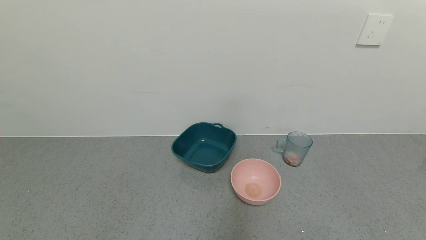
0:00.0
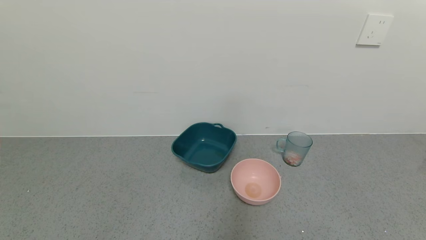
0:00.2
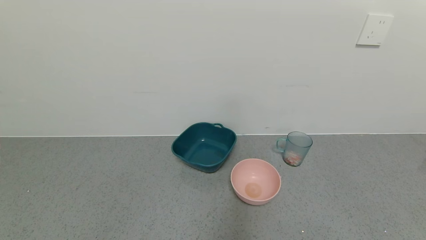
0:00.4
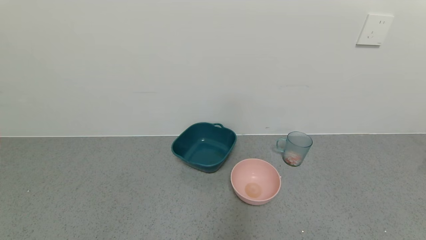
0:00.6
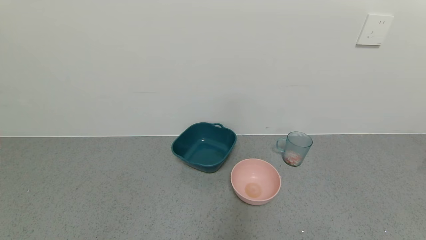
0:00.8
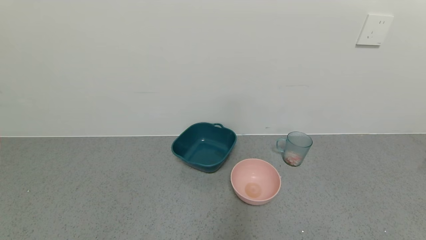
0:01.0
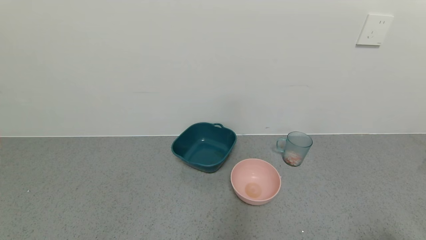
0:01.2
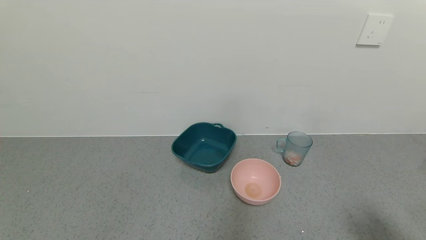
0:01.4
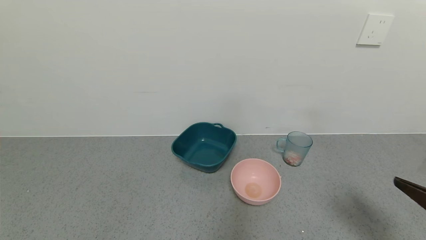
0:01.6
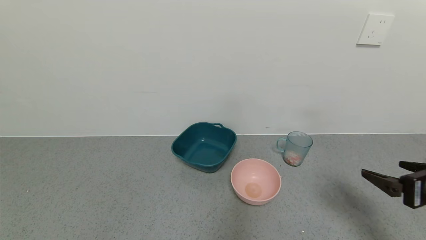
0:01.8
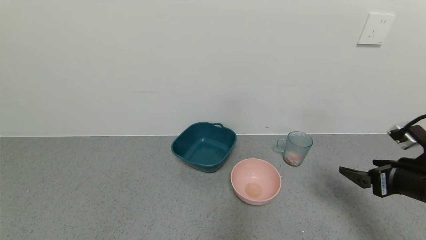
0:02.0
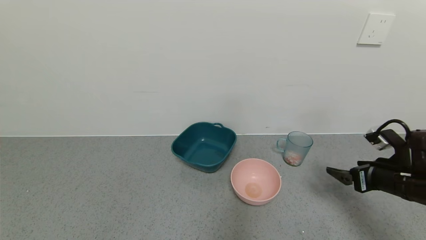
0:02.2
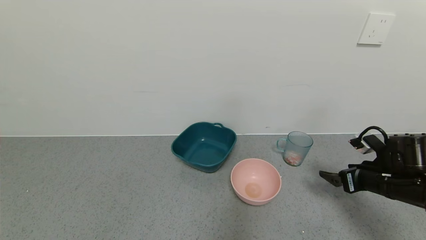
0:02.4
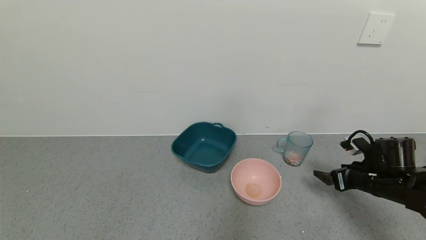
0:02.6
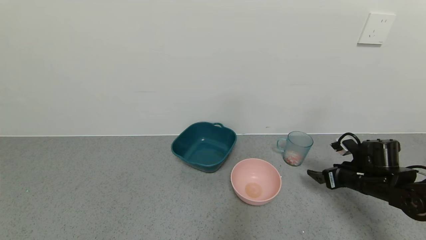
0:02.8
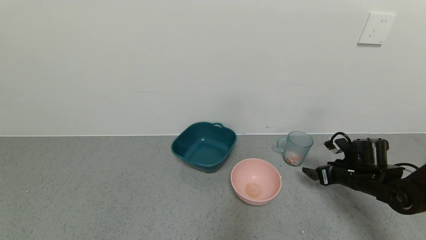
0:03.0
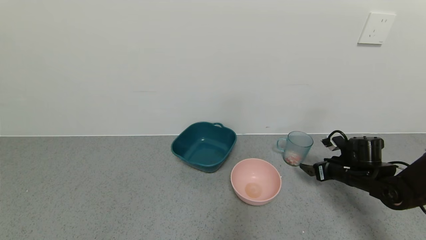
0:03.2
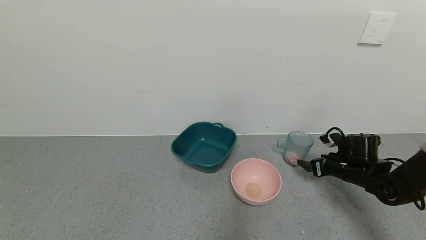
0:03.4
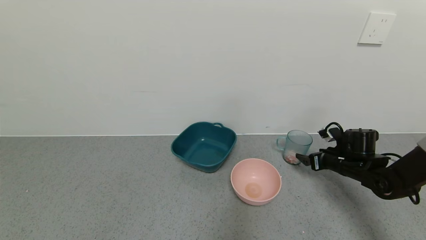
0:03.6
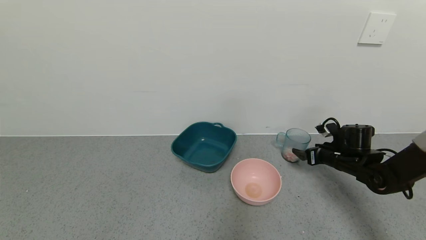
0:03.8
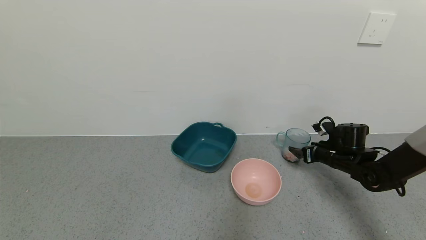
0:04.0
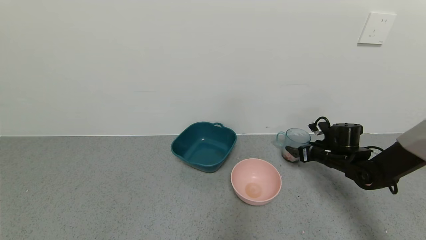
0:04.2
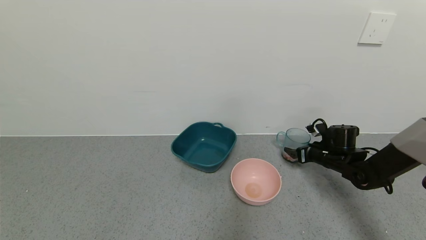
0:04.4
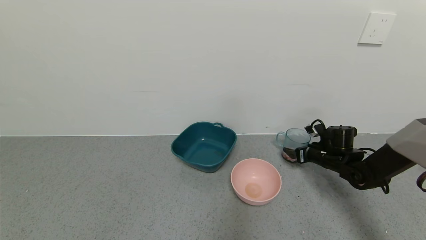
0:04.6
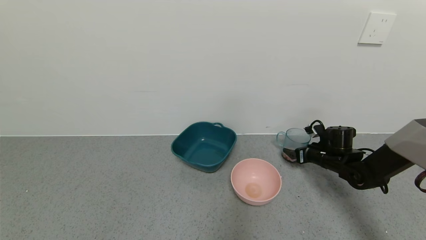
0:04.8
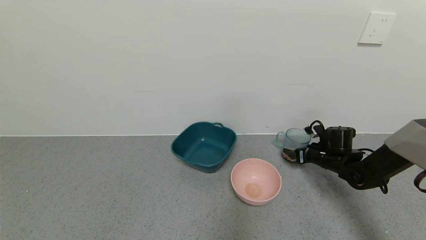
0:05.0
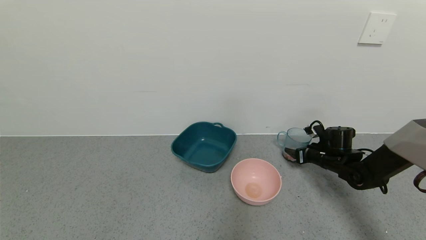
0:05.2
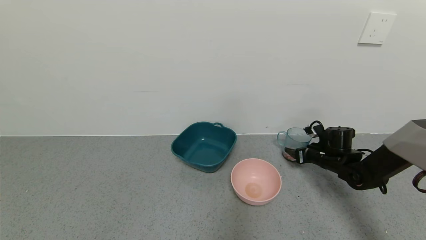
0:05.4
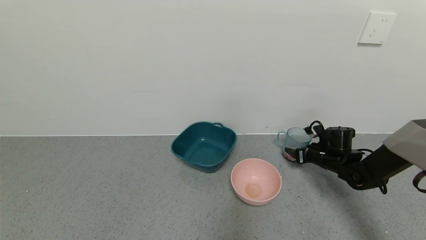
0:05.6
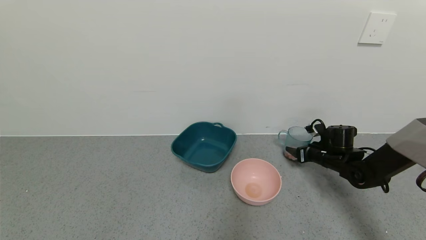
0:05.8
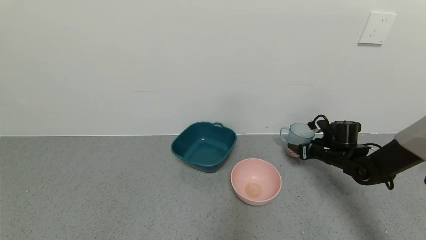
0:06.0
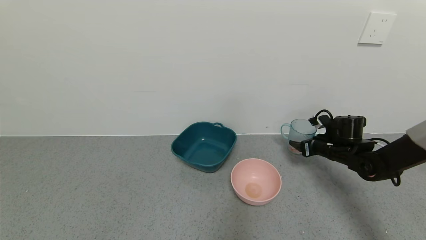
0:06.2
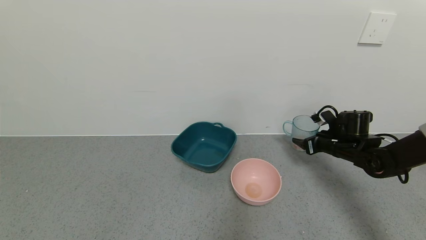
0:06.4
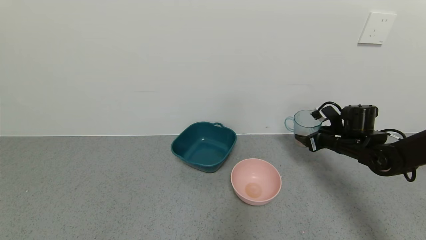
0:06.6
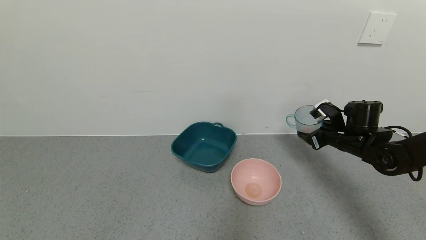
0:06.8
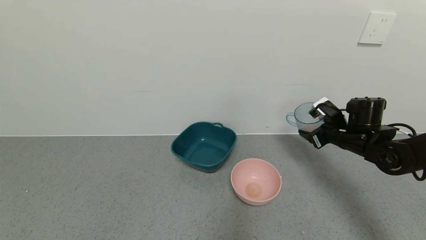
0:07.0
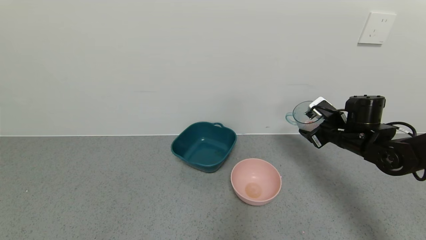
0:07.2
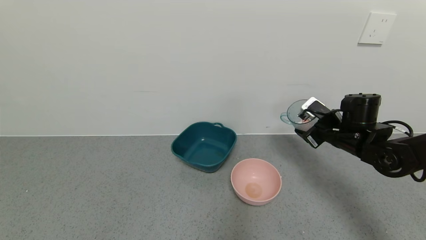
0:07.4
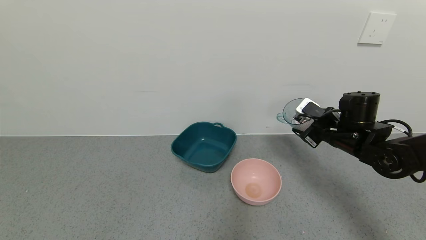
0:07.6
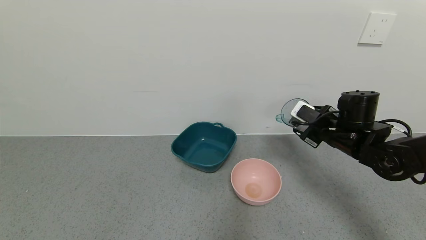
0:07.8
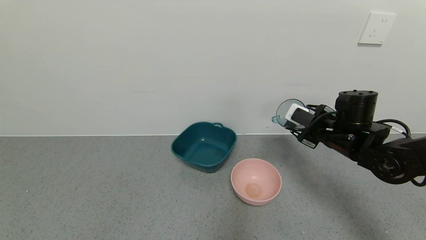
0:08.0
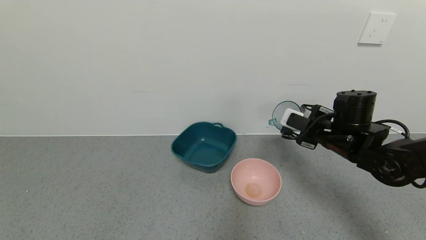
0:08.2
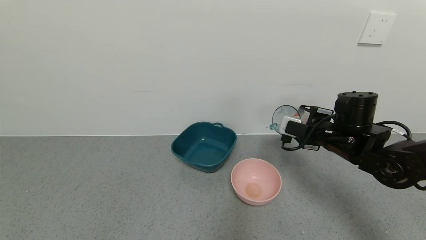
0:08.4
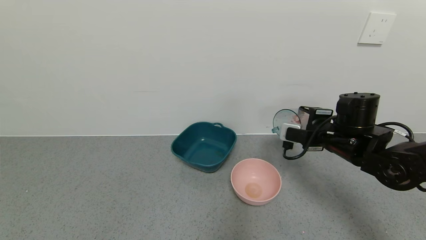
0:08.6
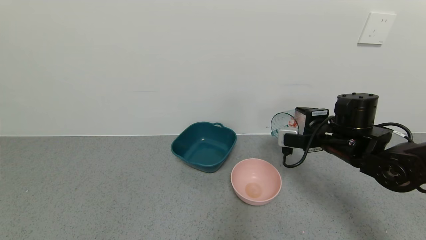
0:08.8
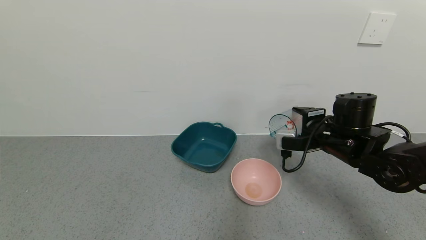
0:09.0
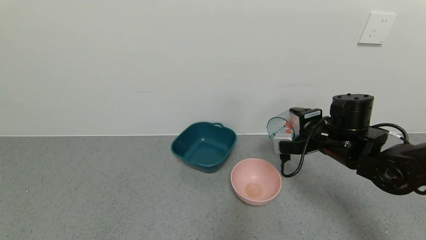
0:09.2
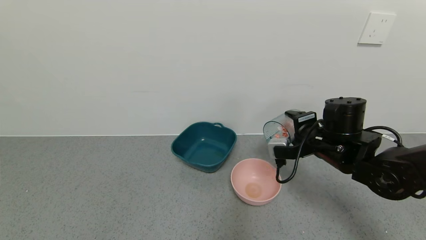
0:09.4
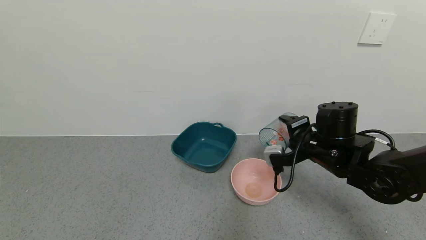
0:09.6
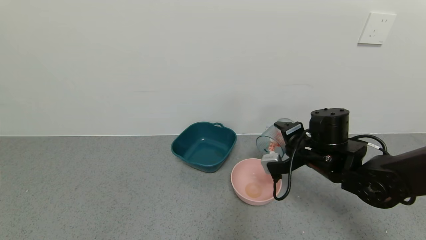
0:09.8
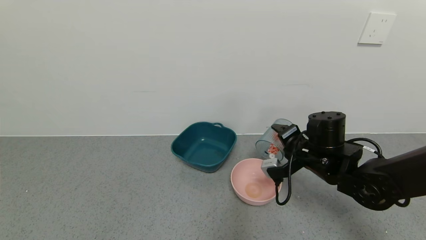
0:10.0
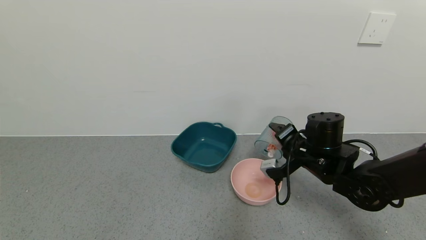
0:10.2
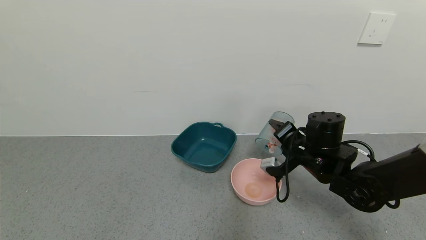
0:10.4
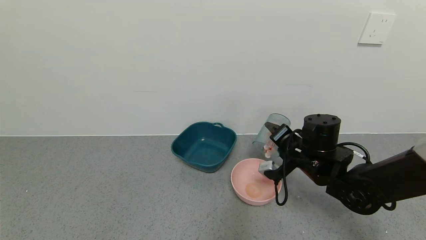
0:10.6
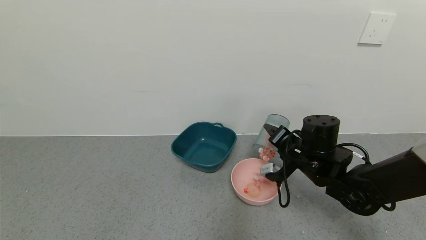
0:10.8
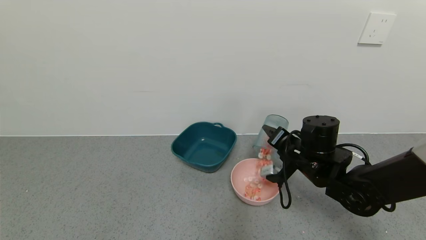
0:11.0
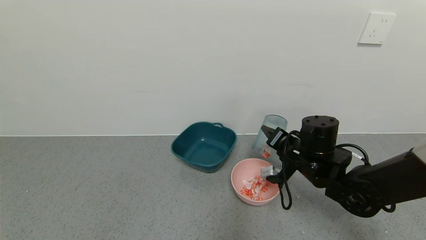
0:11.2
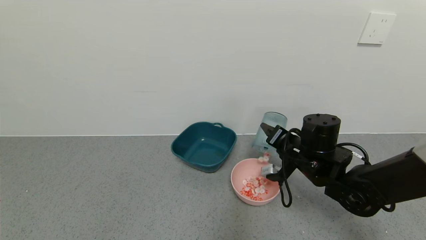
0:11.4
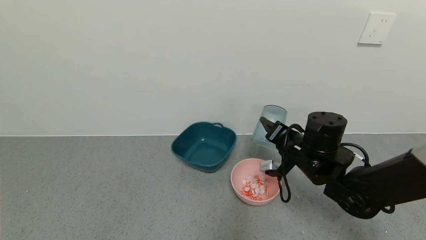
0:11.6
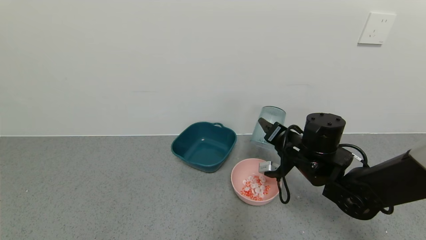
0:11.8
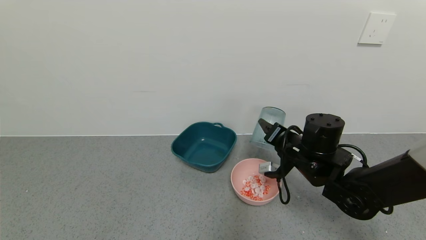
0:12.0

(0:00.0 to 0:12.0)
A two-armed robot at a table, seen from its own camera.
Task of the whole recording: use a gripper to pick up the cup and pour the solid into a bowl or tray.
Step, 0:00.0 - 0:05.6: Grasp the glass of shrimp with the right gripper.
0:00.0 - 0:01.6: The right gripper travels forward and upward by some 20 cm.
0:01.6 - 0:03.0: The right gripper goes about 25 cm forward and downward.
0:03.0 - 0:04.4: The right gripper heads forward, covering approximately 5 cm.
0:04.4 - 0:06.0: The right gripper closes its fingers.
0:06.0 - 0:07.6: The right gripper moves upward and backward, roughly 10 cm.
0:09.0 - 0:10.4: The right gripper ends up roughly 5 cm from where it was.
0:10.4 - 0:12.0: The grippers stay close to where they were, moving slightly.

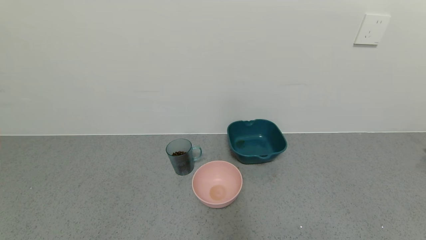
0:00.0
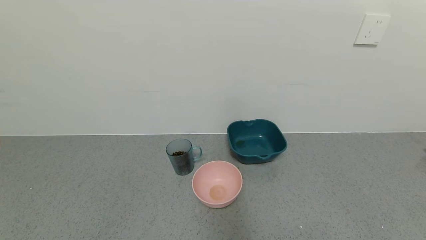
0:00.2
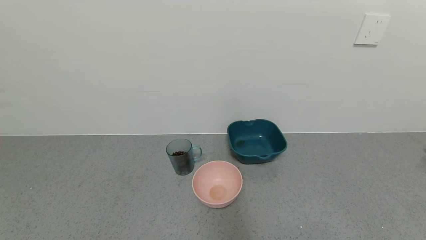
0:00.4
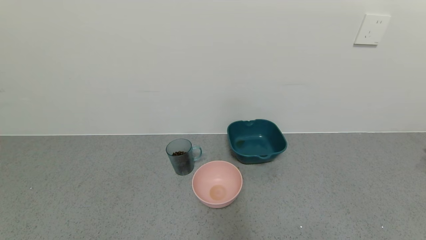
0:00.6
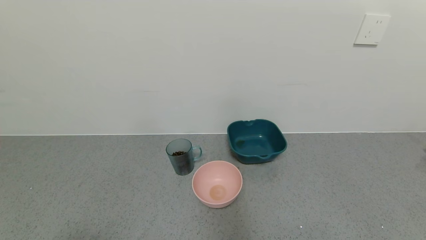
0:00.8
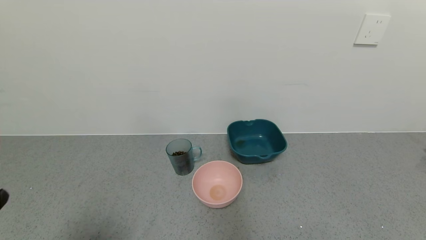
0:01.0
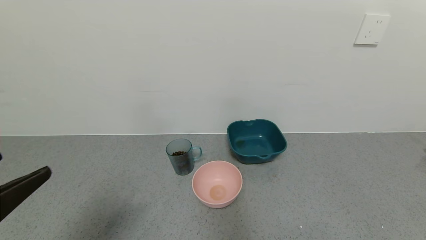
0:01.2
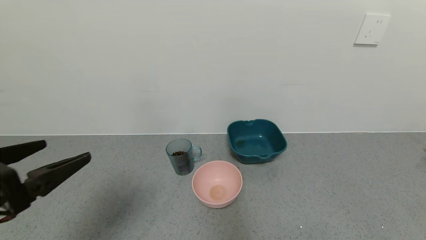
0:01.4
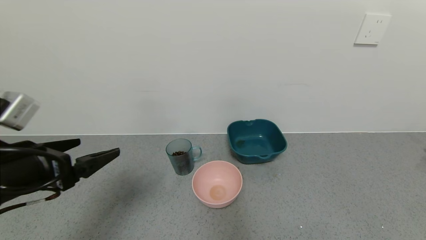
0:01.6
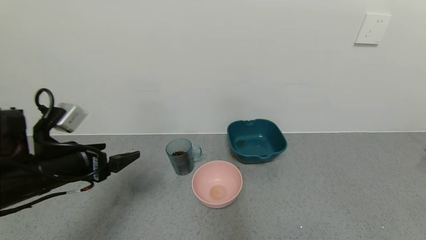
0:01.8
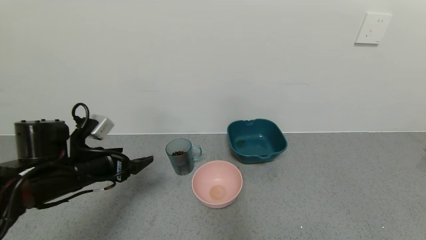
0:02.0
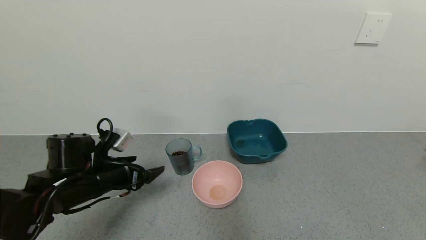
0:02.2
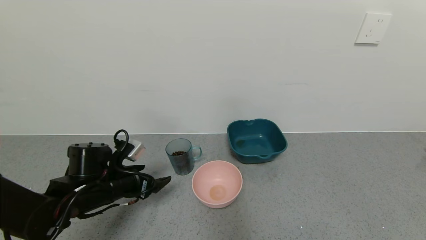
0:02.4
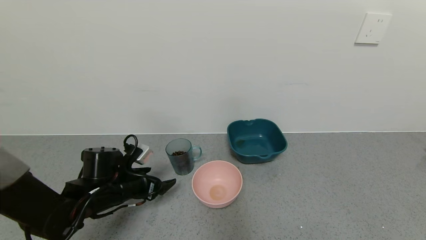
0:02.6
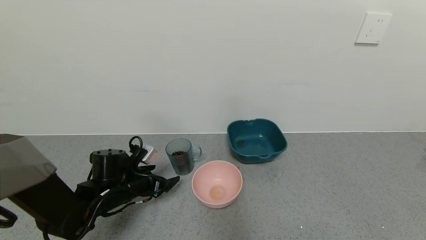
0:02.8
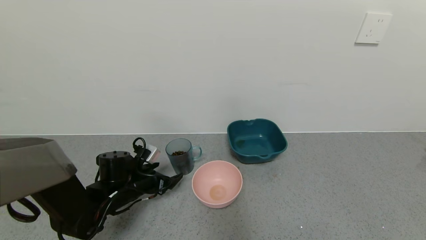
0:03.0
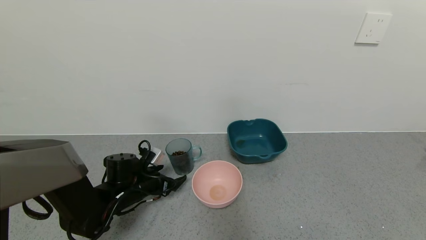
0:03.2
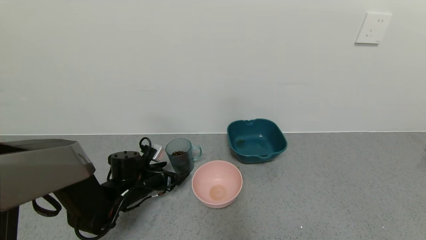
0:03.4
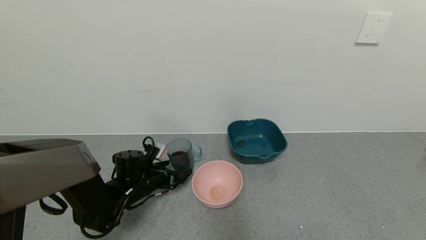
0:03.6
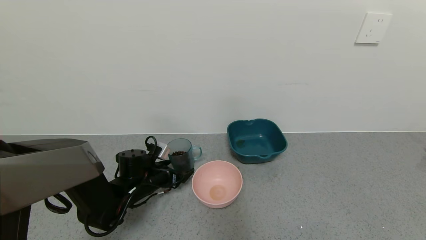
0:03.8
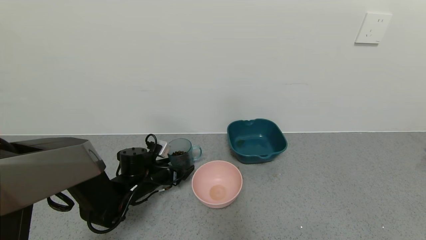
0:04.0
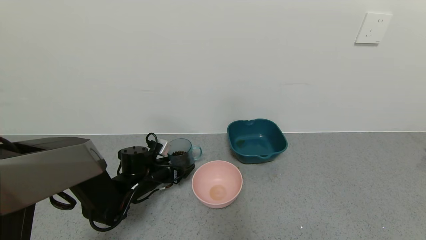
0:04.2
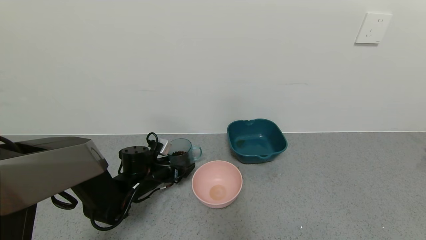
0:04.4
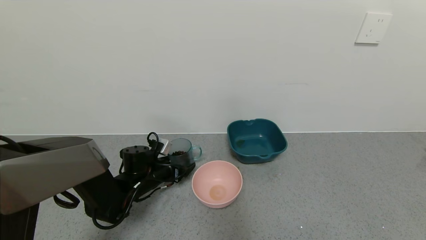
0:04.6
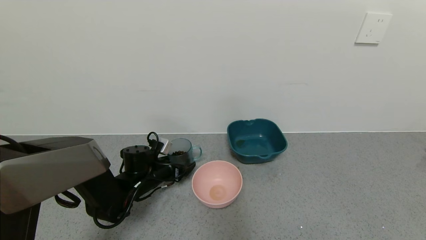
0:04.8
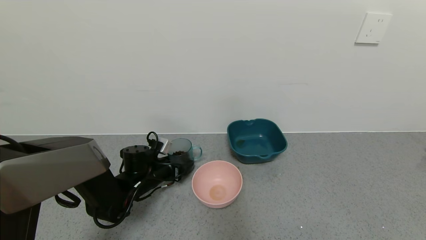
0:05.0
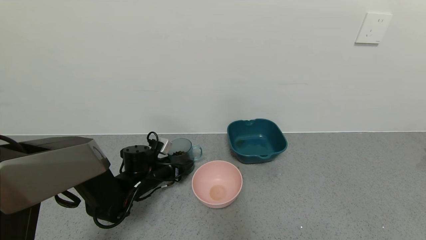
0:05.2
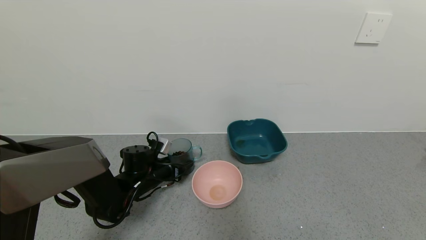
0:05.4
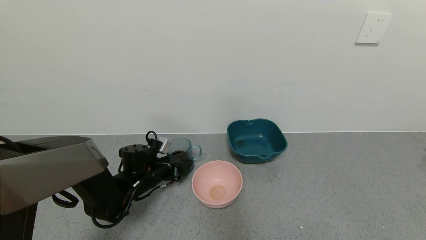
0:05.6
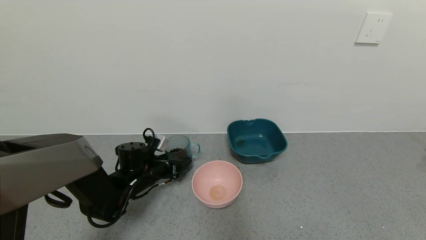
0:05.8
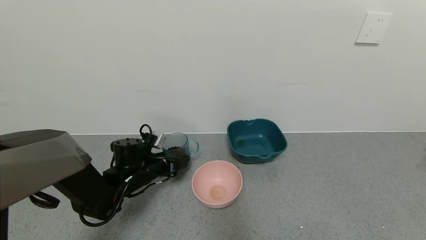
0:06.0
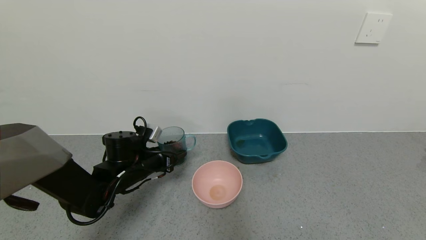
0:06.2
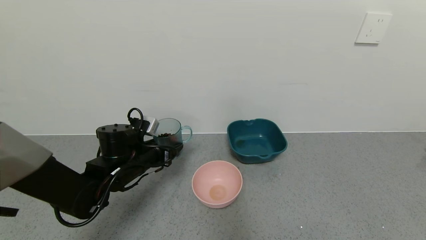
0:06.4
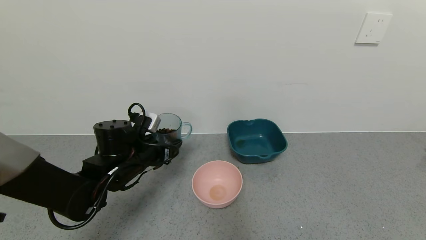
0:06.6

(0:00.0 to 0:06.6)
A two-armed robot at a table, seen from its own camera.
Task of the whole recording: use a gripper to pick up the cup and pour the solid into a bowl or tray.
Step, 0:00.0 - 0:05.2: Grasp the glass of coffee beans with the left gripper.
0:00.0 - 0:01.6: The left gripper shifts some 25 cm forward and upward.
0:01.6 - 0:03.2: The left gripper goes about 25 cm downward and forward.
0:03.2 - 0:05.0: The left gripper closes.
0:05.0 - 0:06.6: The left gripper travels upward by approximately 10 cm, and closes.
